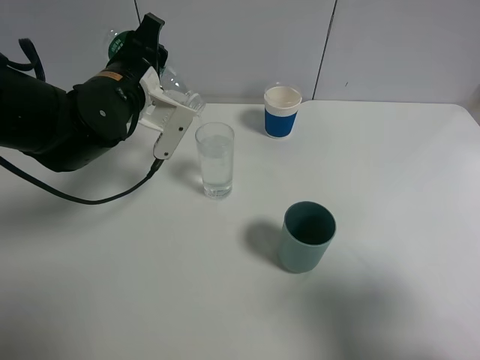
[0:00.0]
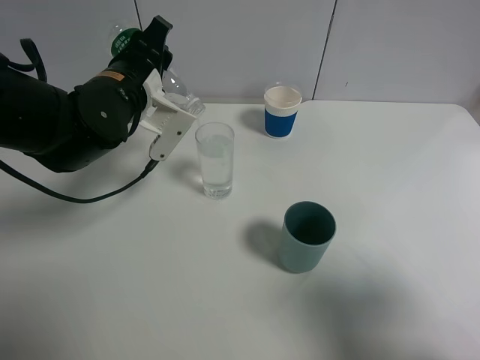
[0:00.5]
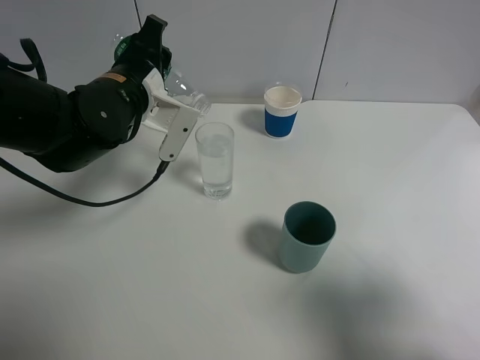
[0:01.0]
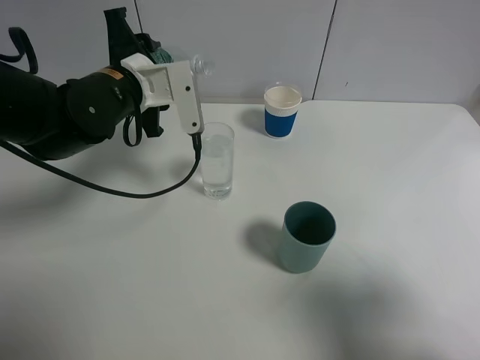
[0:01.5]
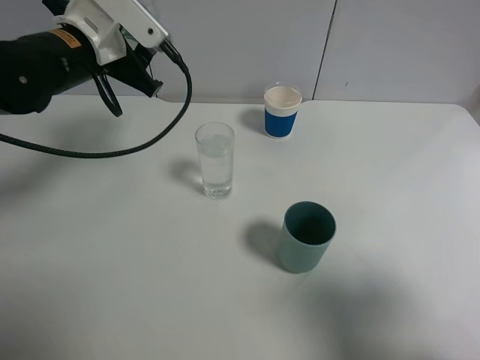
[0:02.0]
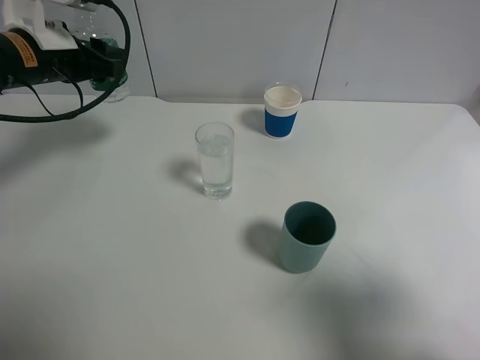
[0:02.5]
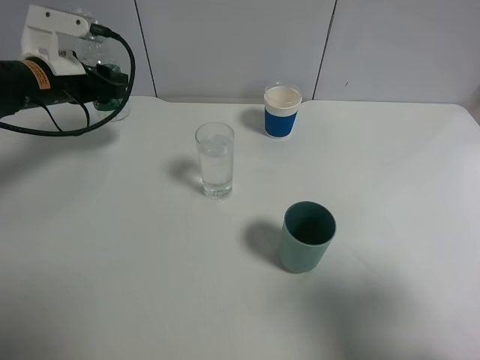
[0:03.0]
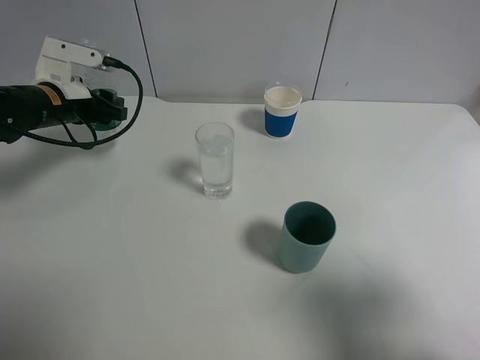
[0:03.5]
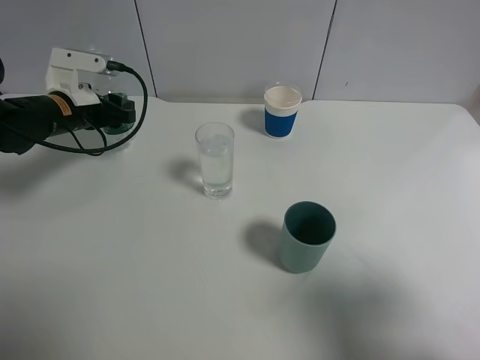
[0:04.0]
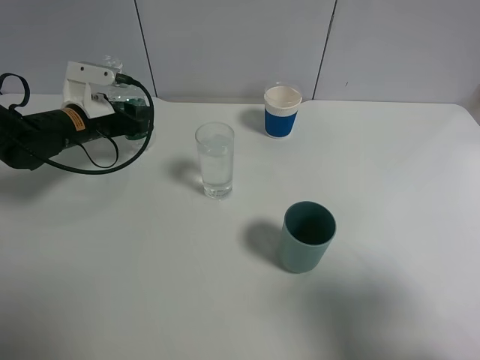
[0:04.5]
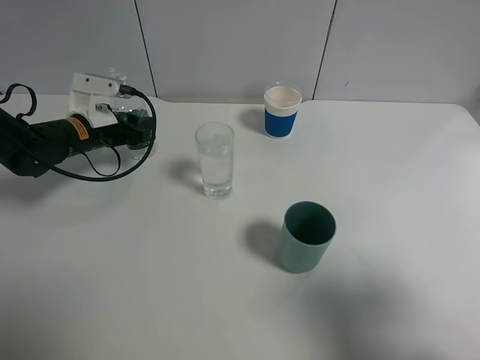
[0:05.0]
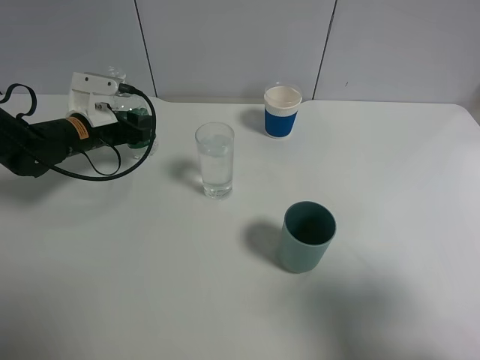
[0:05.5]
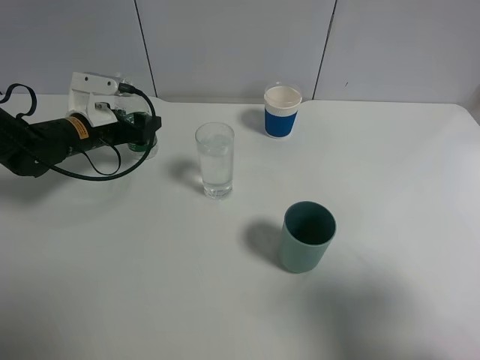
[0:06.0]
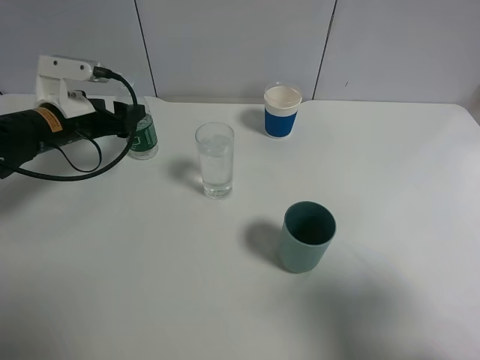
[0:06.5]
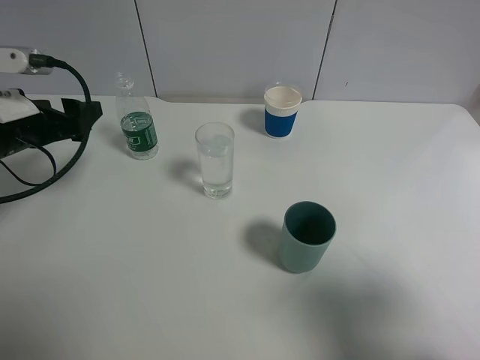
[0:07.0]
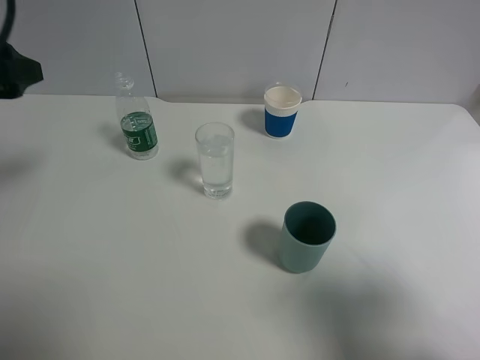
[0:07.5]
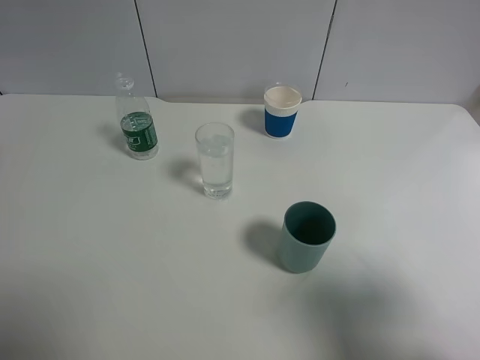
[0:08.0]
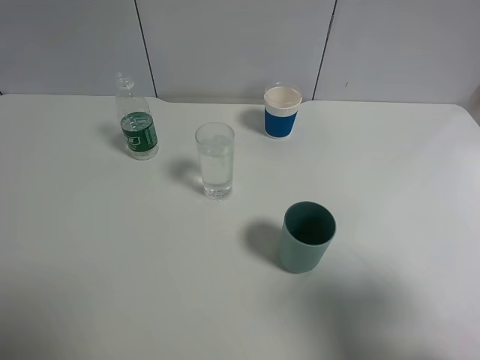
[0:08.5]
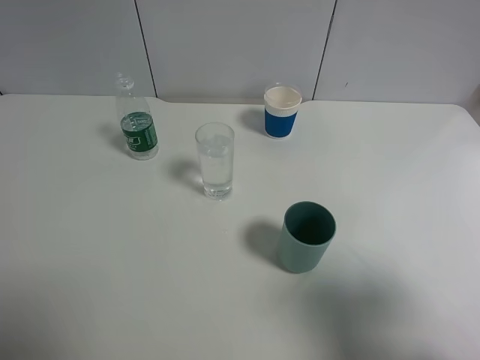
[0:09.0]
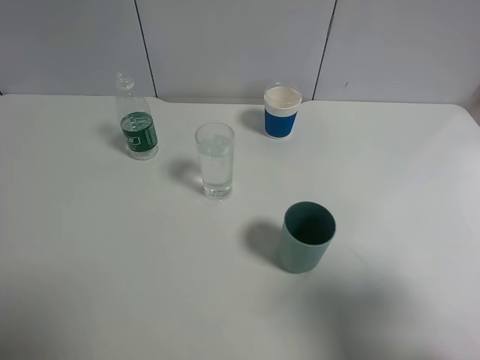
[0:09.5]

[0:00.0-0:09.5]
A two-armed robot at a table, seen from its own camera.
Task of the whole recording: use a gripper to hold the bottle of the drink and pour it into a random cup.
Step, 0:01.5 to 0:06.0: Place the mineral water bottle on the table with the left gripper.
0:00.0 to 0:02.0: The left gripper moves some 5 cm.
0:02.0 to 0:04.0: The left gripper travels downward and to the left by some 15 cm.
0:04.0 to 0:05.5: There are only small adjustments of the grippers.
0:05.5 to 0:07.5: The left gripper goes about 25 cm upward and backward, and opens up.
0:07.5 to 0:09.5: The left gripper heads backward, covering roughly 25 cm.

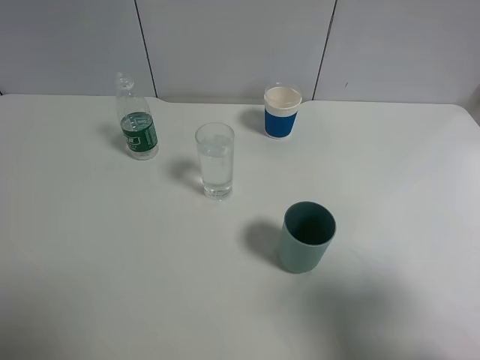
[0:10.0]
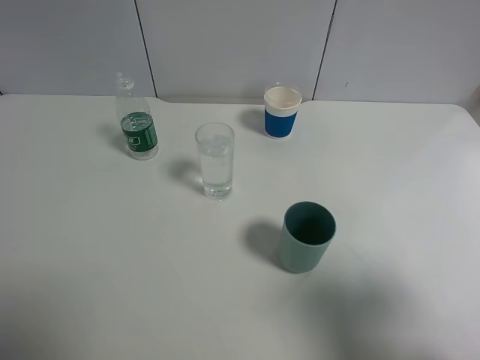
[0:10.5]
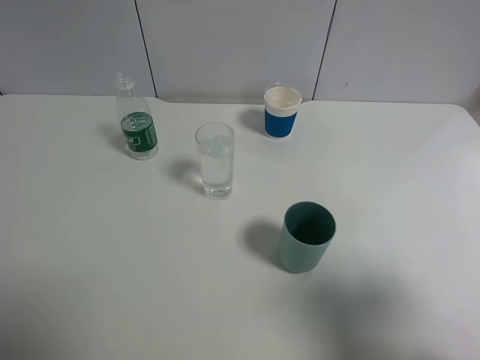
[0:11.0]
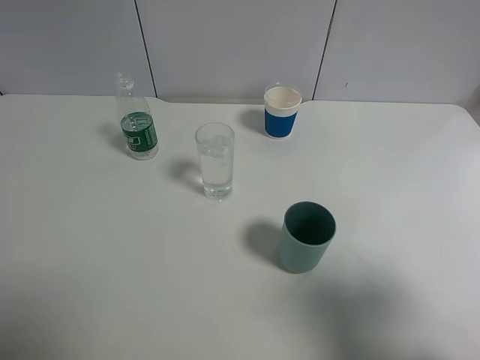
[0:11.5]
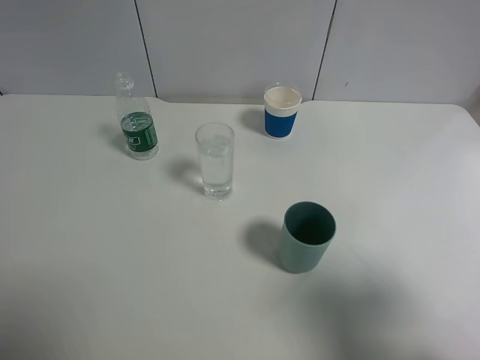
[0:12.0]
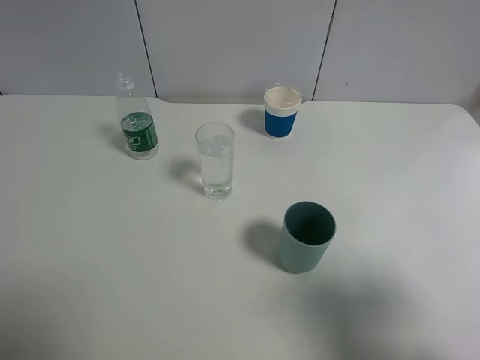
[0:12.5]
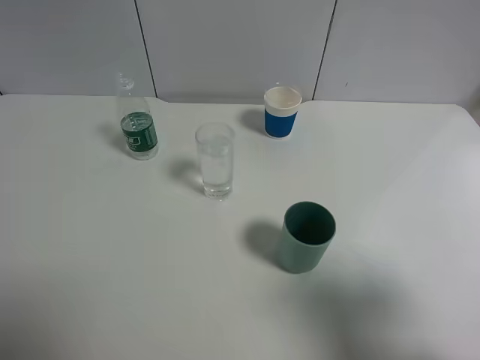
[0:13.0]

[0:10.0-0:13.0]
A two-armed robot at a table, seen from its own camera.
Task of the whole recording: use a gripper to hold the bottle of the drink and pour it into a random cup.
0:10.0 to 0:13.0: Both grippers stay about where they are.
